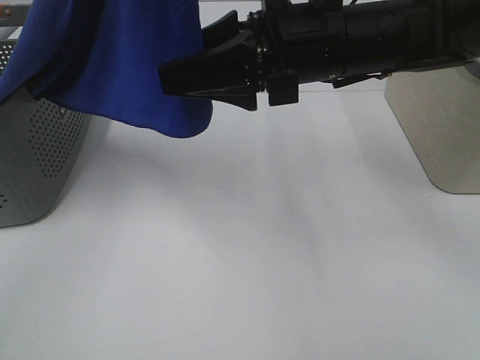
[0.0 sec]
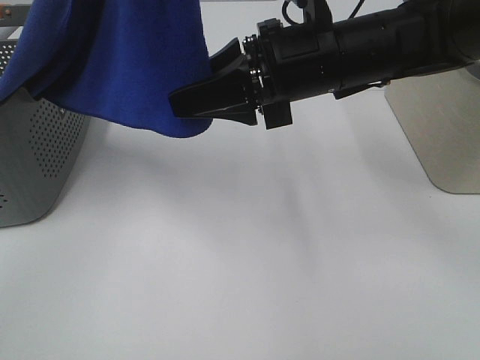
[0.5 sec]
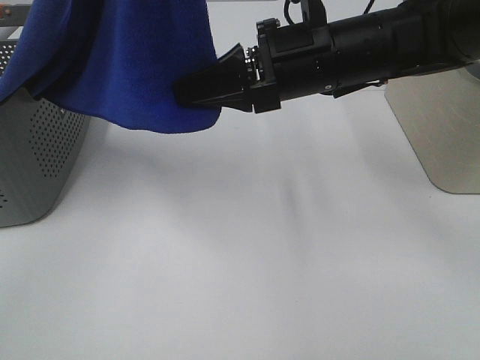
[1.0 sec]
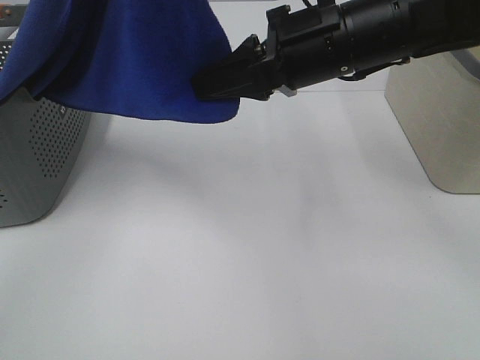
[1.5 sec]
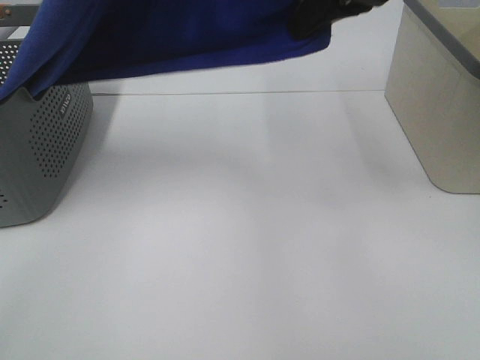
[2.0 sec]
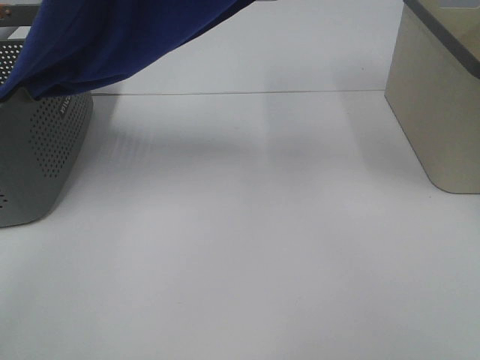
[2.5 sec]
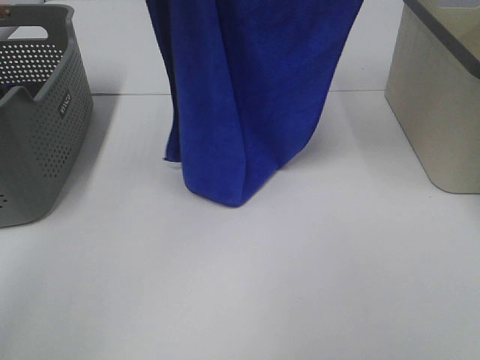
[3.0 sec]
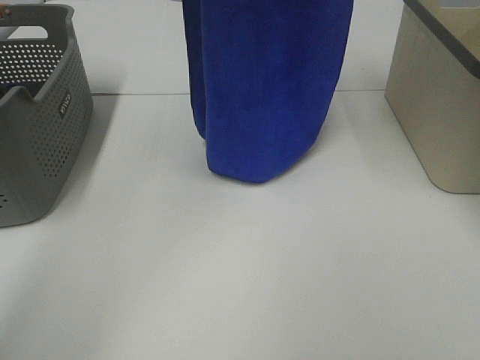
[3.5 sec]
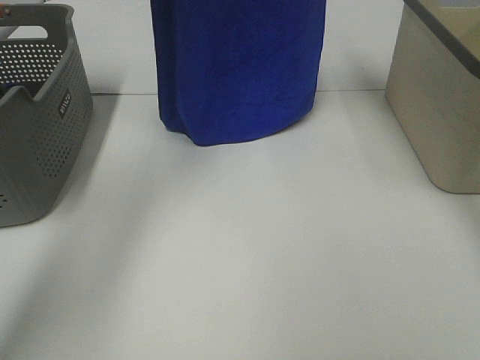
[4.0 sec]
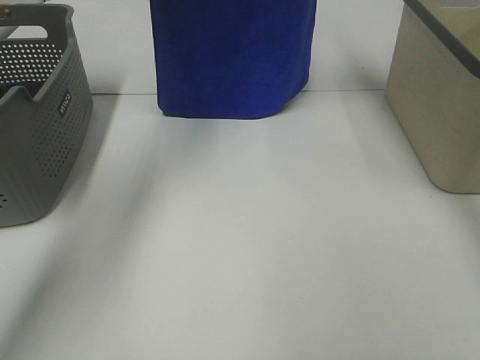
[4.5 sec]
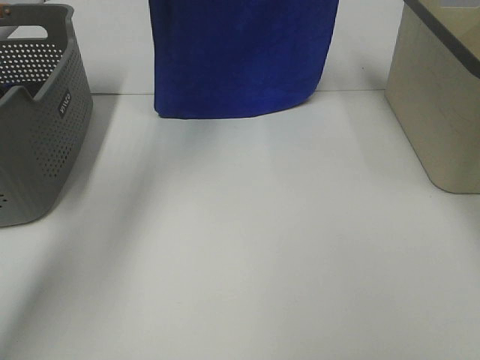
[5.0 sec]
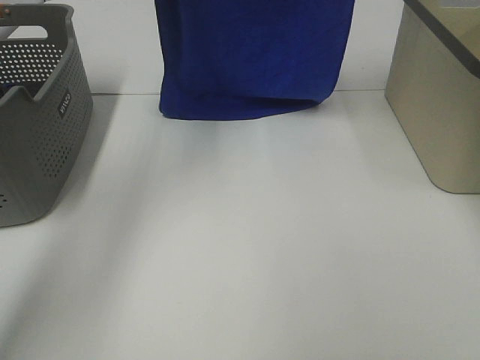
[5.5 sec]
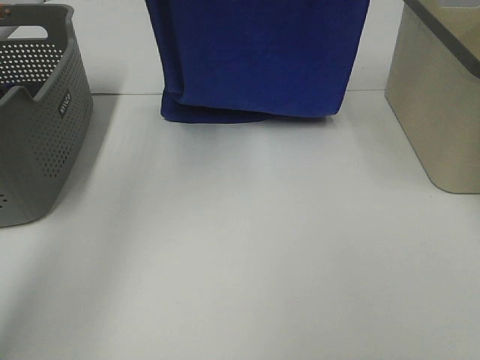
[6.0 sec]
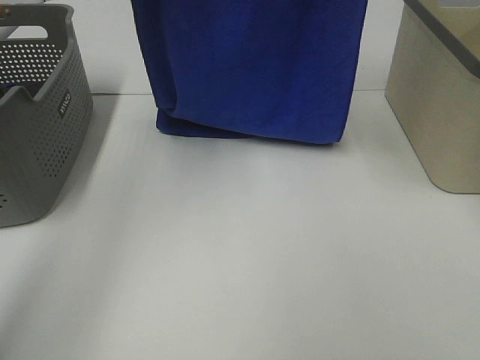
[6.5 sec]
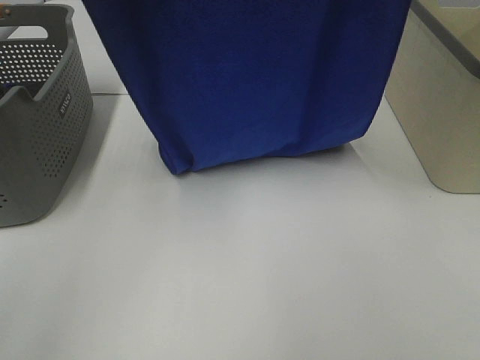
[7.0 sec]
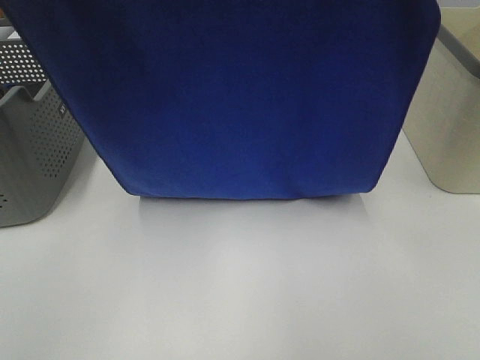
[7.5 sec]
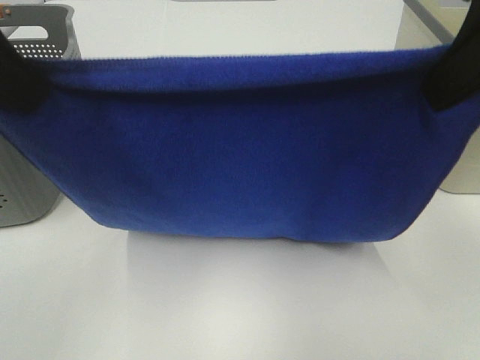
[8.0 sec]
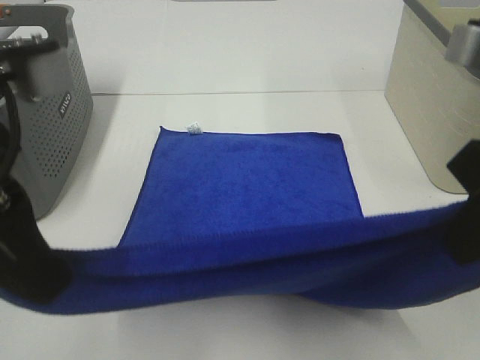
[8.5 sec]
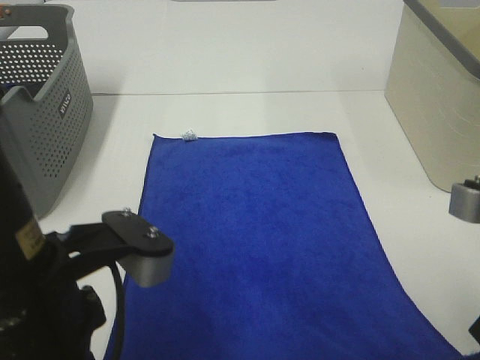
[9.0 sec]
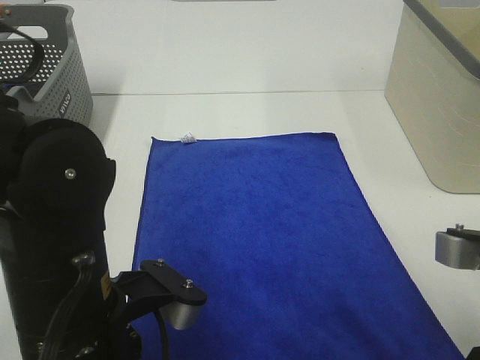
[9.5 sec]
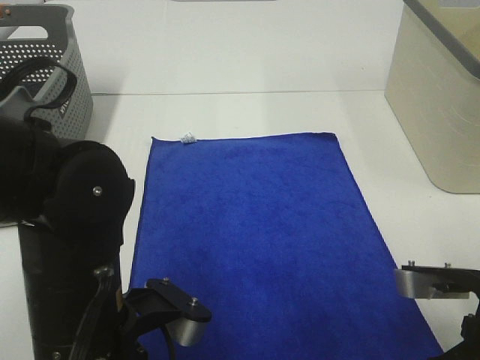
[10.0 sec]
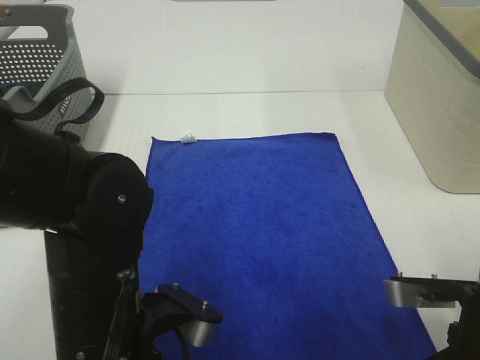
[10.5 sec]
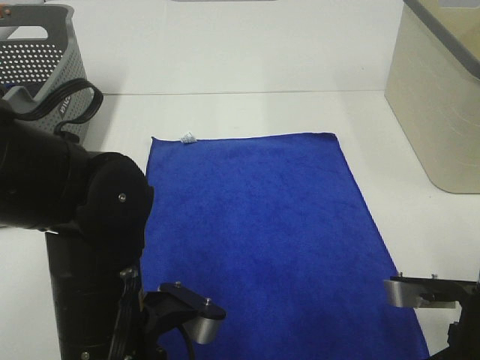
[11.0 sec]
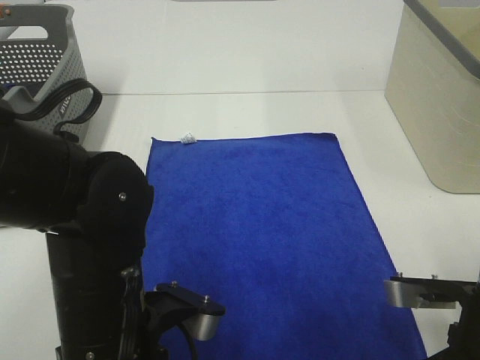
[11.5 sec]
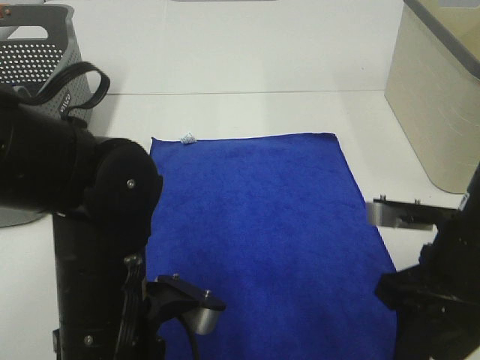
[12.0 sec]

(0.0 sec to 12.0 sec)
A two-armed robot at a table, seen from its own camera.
Task of the whole recording: Remove the towel and place it.
Step, 1.5 sec - 6.5 sec: Left hand: spread the blue towel flat on the table.
Step, 1.5 sec - 6.5 sec: Right hand: spread the blue towel flat on the table.
0.0 sec - 2.0 sec: The right gripper shifts approximately 10 cm upward, and closes up.
2.0 sec - 4.0 sec: The left gripper moves forward, roughly 25 cm, while the right gripper shifts about 20 cm forward and upward.
4.0 sec - 6.0 sec: The grippers both shift backward by about 10 cm.
6.0 sec - 8.0 sec: Both grippers travel together backward and downward, about 25 cm.
8.0 sec - 10.0 sec: The left gripper goes about 25 cm downward and to the right. The right gripper heads downward, covering approximately 20 cm.
10.0 sec - 12.0 sec: The left gripper opens. The right gripper moves forward, some 5 cm, and opens its fingers.

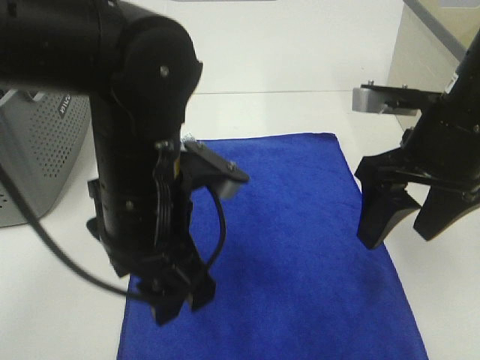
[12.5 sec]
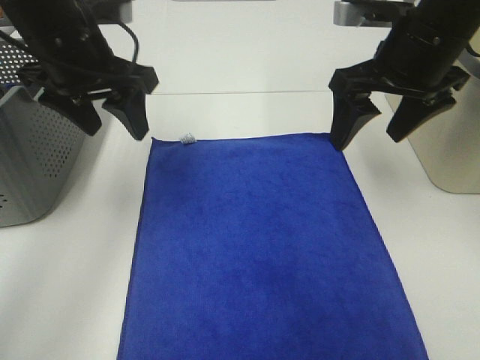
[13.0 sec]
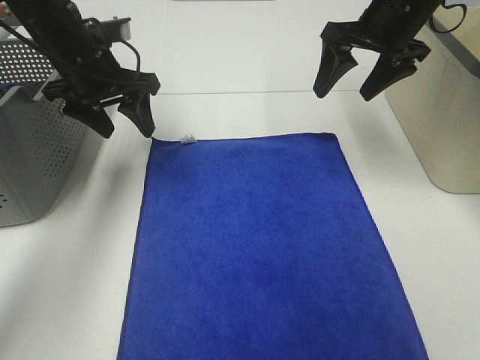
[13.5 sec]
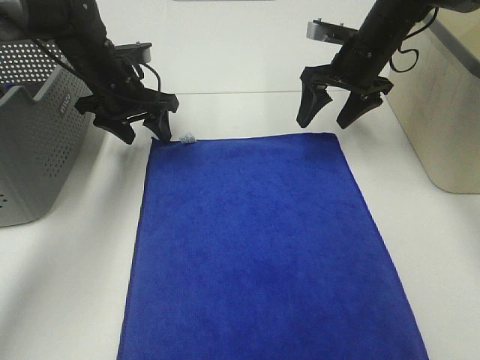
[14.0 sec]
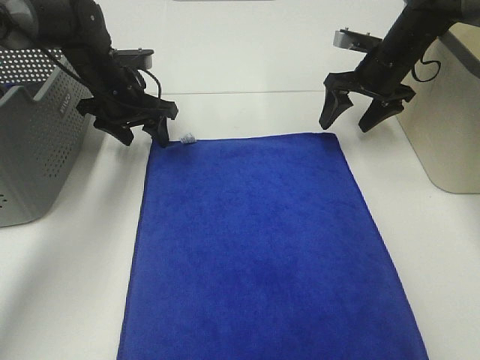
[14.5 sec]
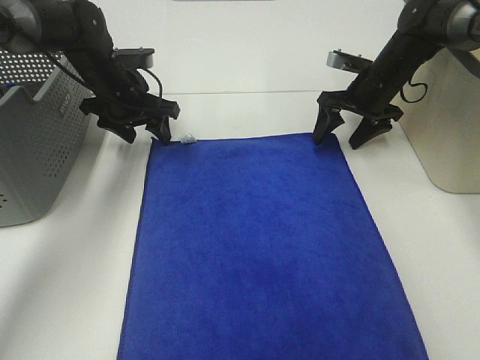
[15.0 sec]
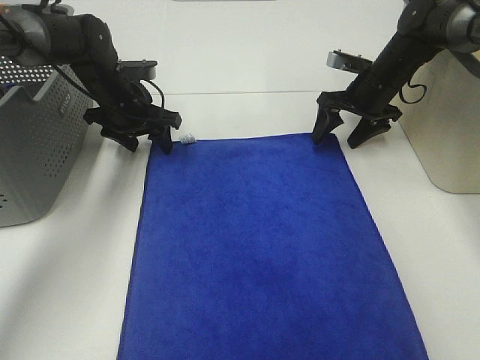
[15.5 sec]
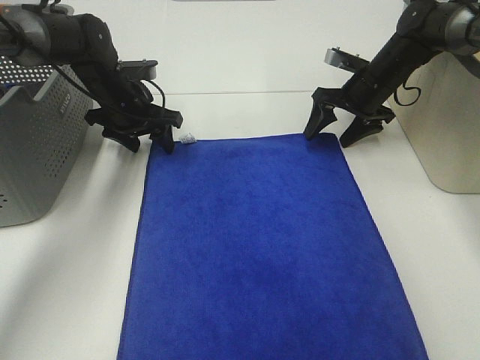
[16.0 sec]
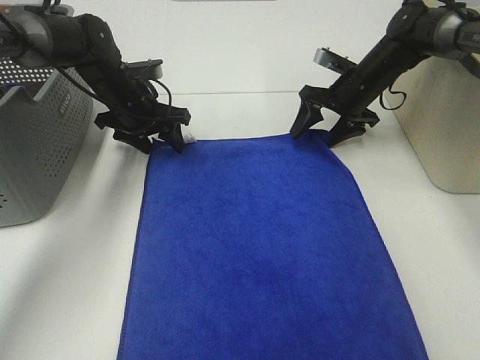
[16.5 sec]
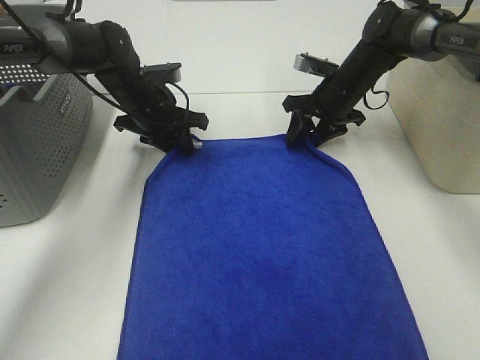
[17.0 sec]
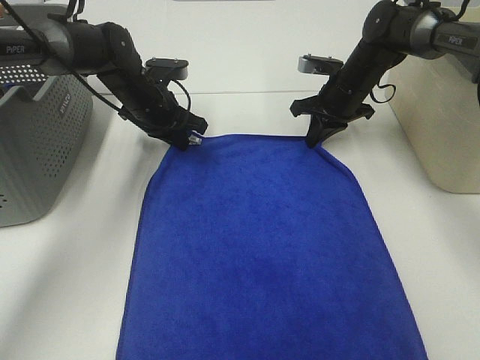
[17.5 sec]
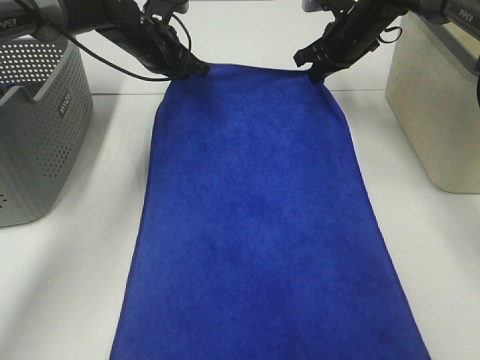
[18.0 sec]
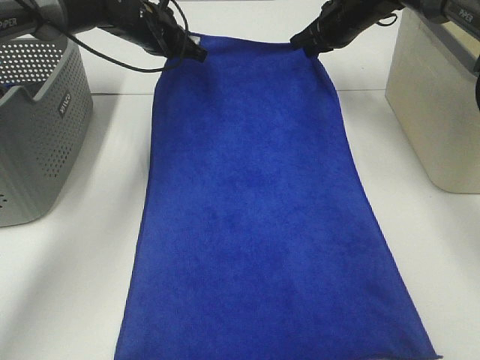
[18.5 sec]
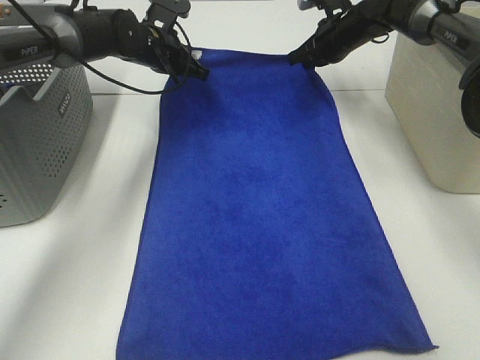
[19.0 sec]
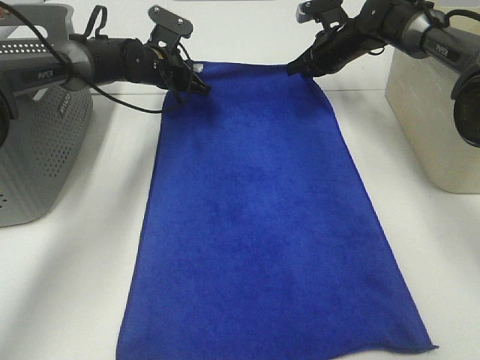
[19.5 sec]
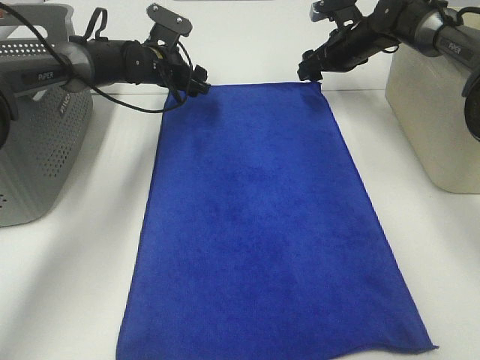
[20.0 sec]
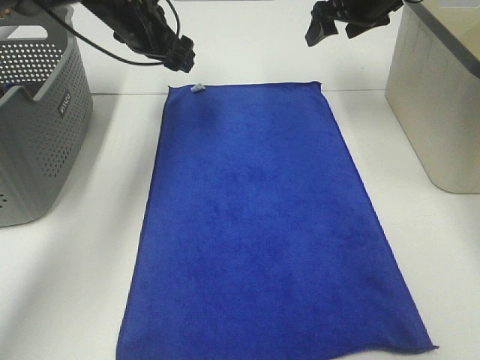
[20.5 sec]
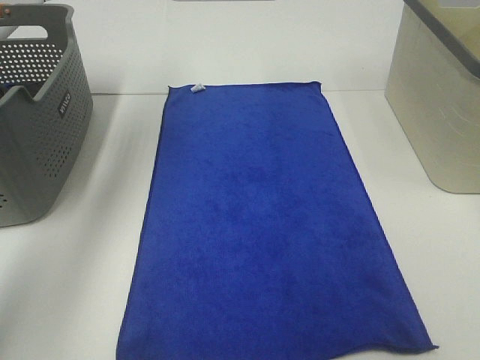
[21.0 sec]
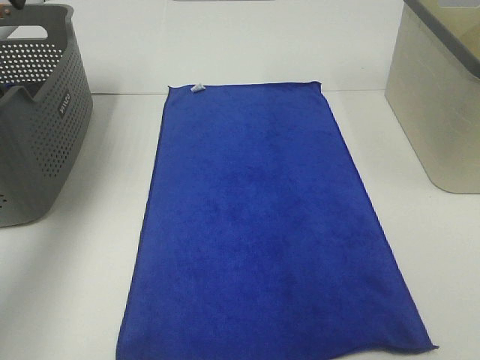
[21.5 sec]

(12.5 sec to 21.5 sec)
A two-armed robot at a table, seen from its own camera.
Task of the whole recording: Remove the towel and place it.
12.5 sec - 14.5 sec: The left gripper moves forward and to the left, approximately 30 cm; the right gripper shifts approximately 25 cm forward.
14.5 sec - 17.0 sec: The left gripper closes up. Meanwhile the right gripper is displaced downward and to the left by some 5 cm, and closes up.
17.0 sec - 19.5 sec: Both grippers move forward, about 5 cm. The right gripper closes. Meanwhile the left gripper travels upward and back again, approximately 10 cm each way.
19.5 sec - 21.5 sec: The right gripper goes approximately 40 cm upward and backward, and opens up, while the left gripper heads upward, to the left and backward, covering some 35 cm, and opens its fingers.

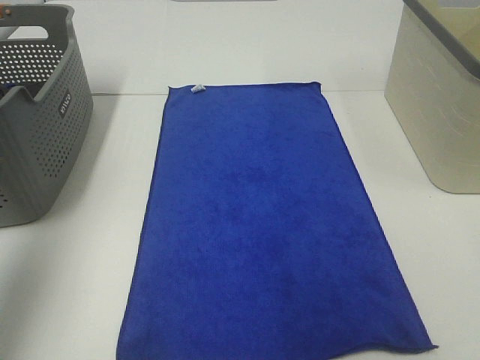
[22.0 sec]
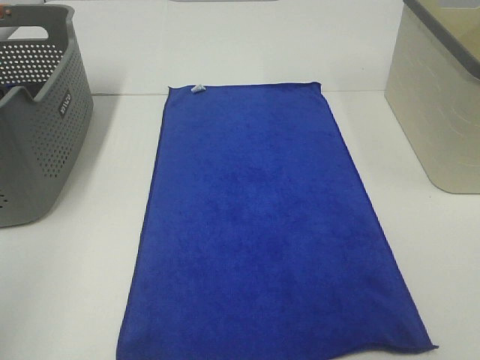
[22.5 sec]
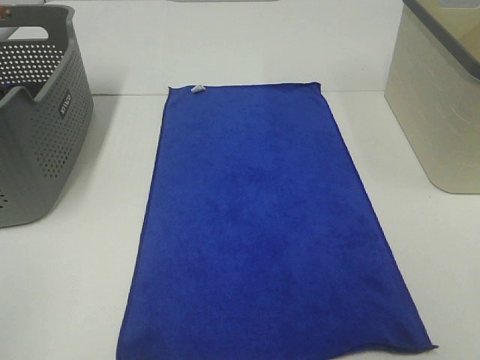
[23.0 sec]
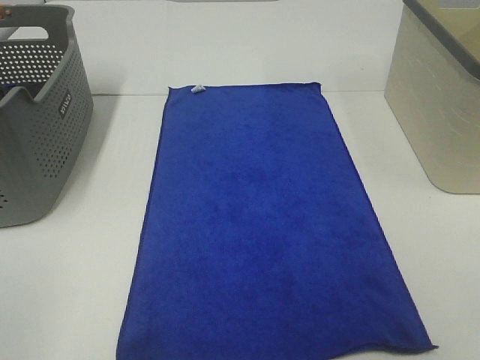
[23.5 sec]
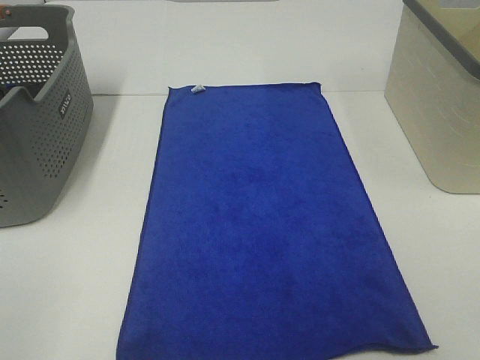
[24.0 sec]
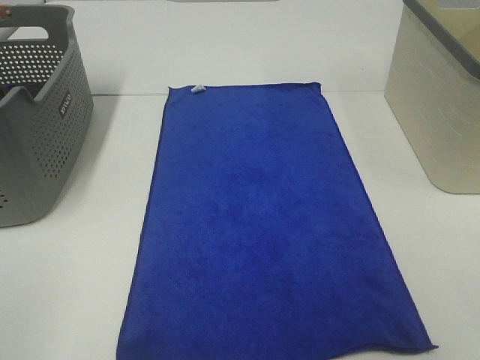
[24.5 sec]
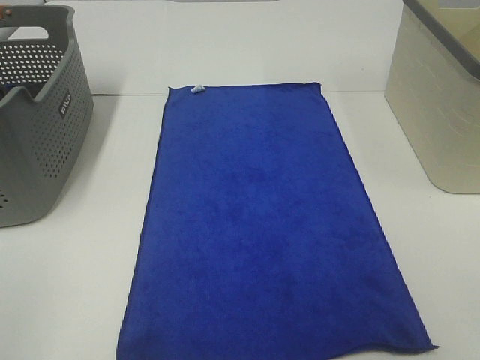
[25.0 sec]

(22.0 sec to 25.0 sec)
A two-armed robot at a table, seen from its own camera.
Task of the whole recording: Remove the towel and place it.
22.0 sec - 23.5 sec: The left gripper travels backward and downward by approximately 25 cm.
23.5 sec - 25.0 sec: The two grippers keep their place.
